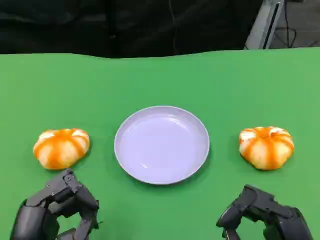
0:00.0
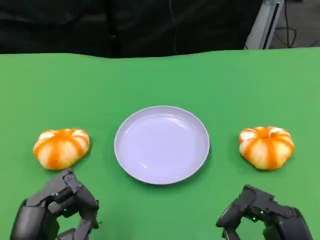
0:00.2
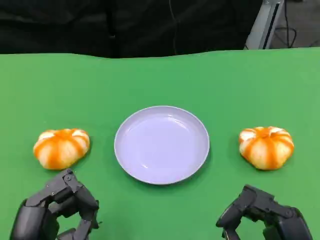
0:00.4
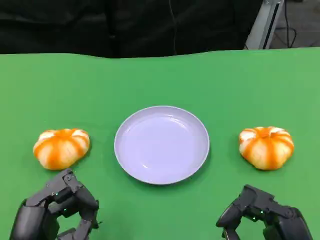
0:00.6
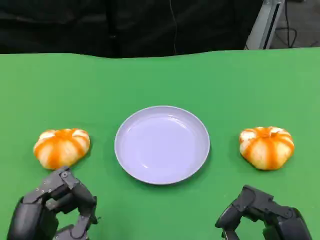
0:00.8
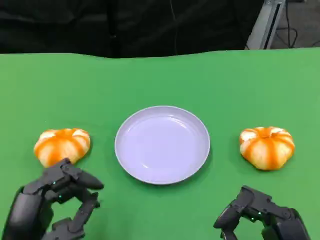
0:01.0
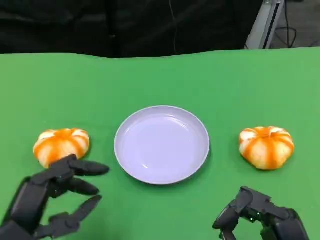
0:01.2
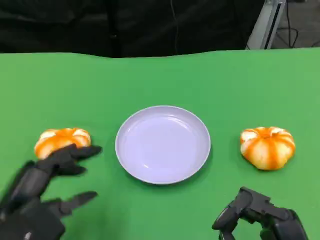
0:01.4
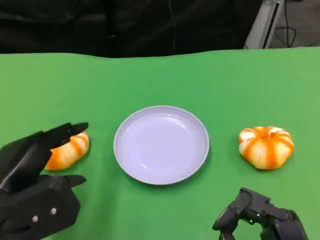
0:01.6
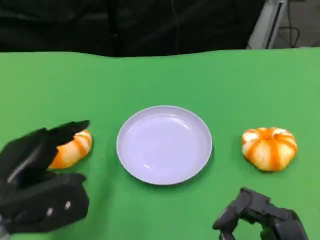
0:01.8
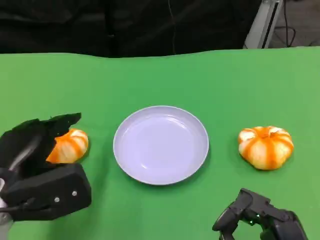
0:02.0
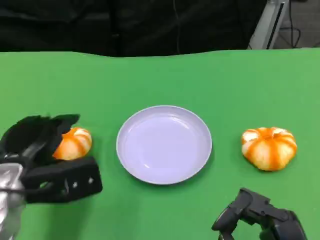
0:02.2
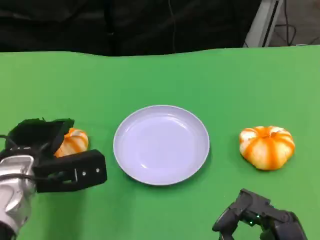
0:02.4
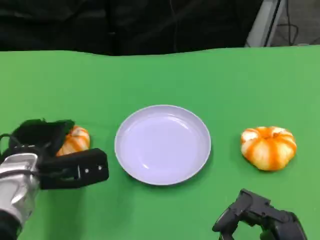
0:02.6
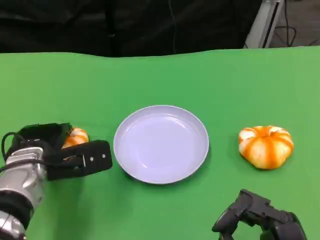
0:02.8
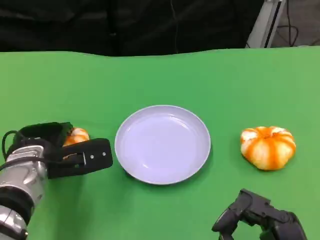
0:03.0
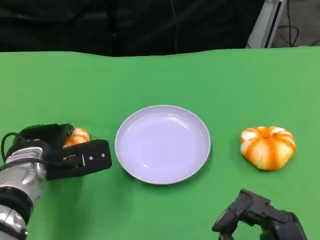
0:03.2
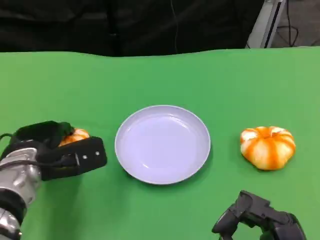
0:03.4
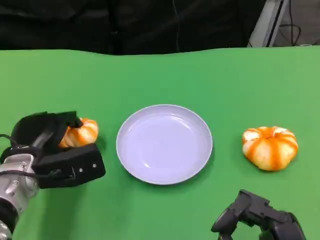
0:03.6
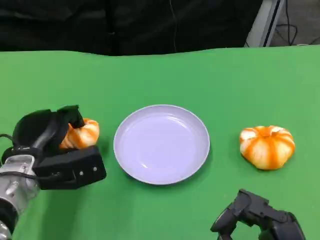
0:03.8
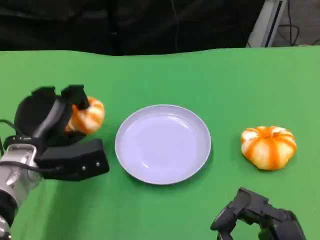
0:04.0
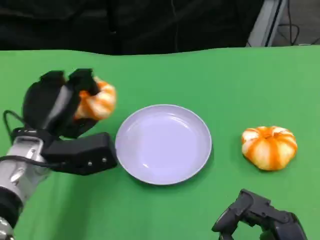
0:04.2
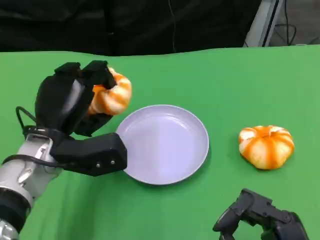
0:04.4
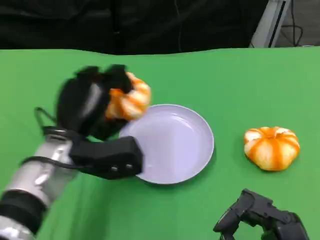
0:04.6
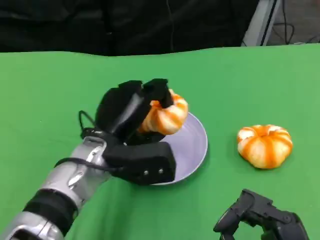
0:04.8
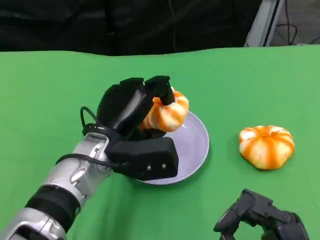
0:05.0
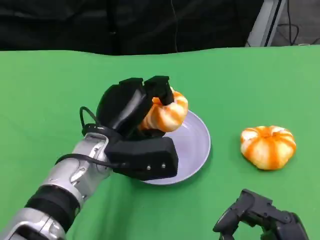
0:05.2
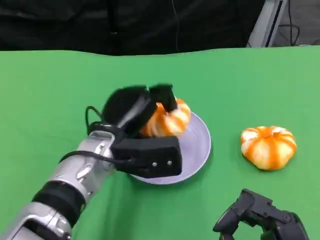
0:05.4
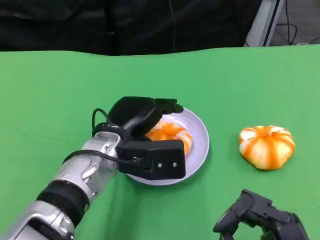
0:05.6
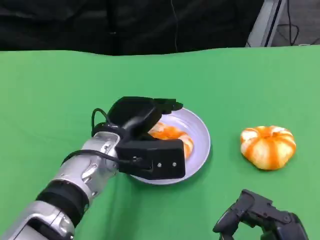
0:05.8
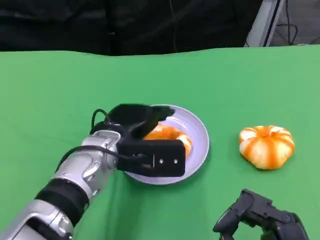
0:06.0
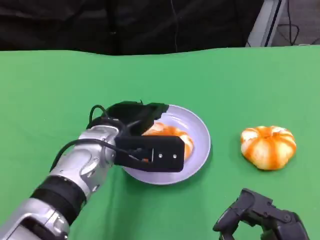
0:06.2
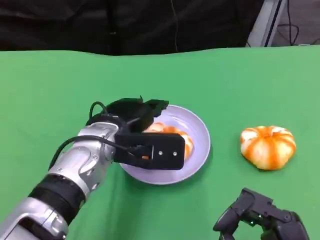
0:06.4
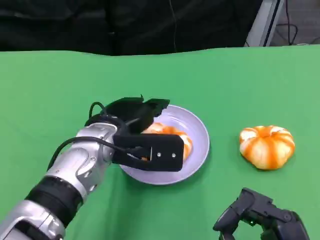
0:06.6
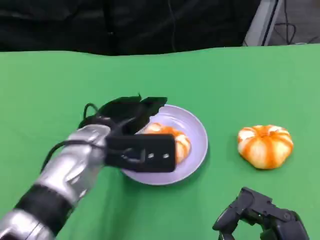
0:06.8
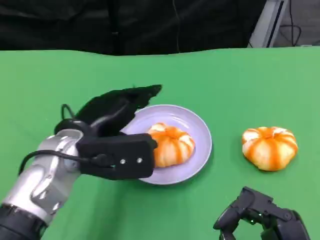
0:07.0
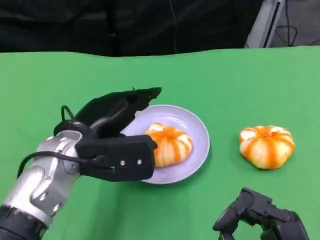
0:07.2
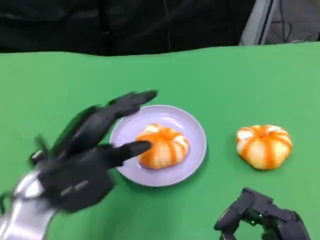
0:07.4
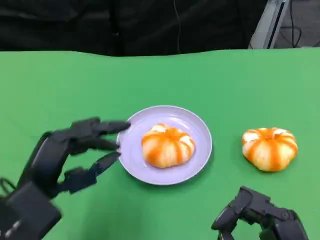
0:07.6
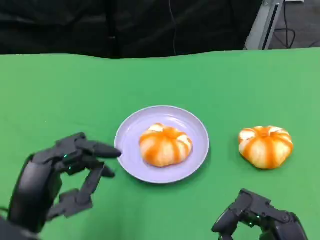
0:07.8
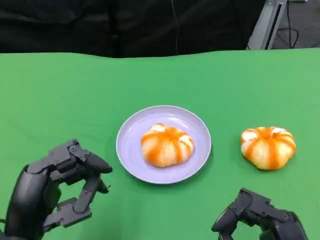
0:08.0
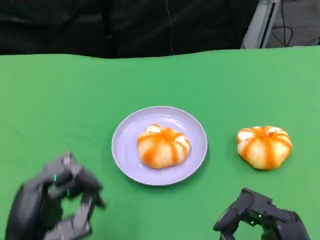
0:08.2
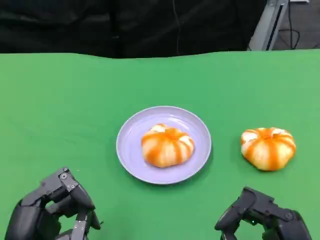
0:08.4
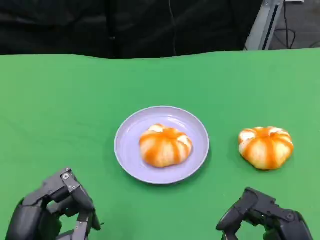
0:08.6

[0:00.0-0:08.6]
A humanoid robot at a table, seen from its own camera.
Task of the whole recording: Grasp the bread from the table and place it into the plate.
0:00.0 to 0:01.4: The left hand is displaced forward by roughly 5 cm.
0:01.4 to 0:02.8: The left hand is displaced forward by about 15 cm.
0:04.4 to 0:05.8: The left hand moves to the right, roughly 10 cm.
0:05.8 to 0:07.2: The left hand heads to the left, covering some 5 cm.
0:07.2 to 0:08.6: The left hand goes about 15 cm backward.

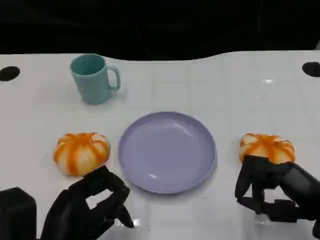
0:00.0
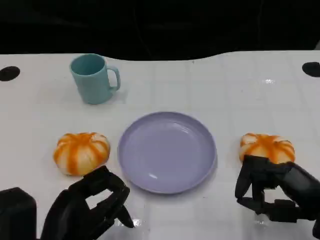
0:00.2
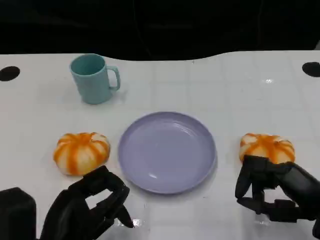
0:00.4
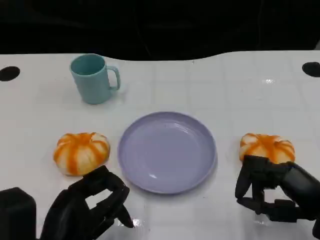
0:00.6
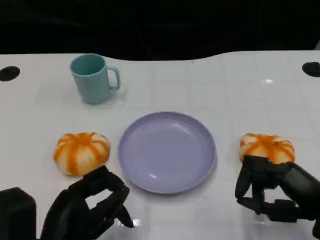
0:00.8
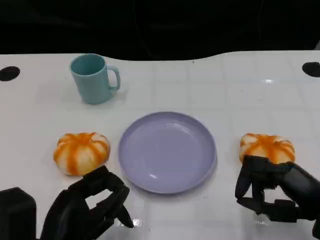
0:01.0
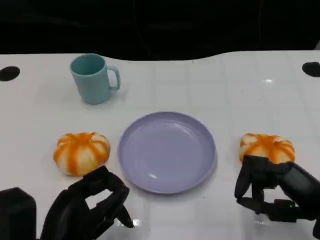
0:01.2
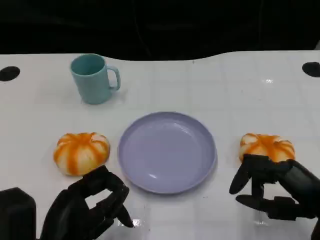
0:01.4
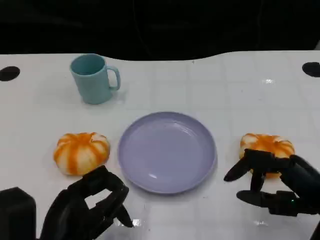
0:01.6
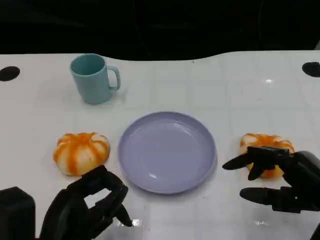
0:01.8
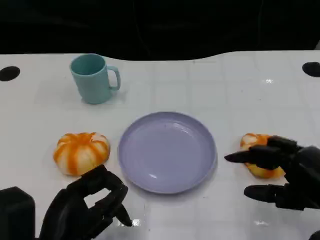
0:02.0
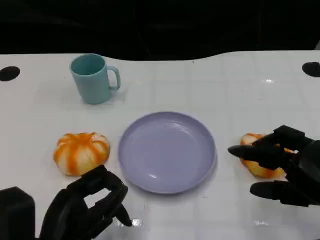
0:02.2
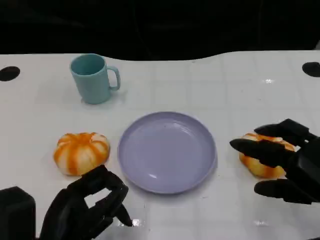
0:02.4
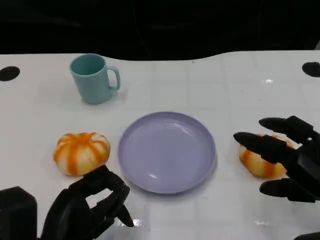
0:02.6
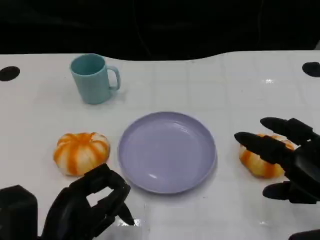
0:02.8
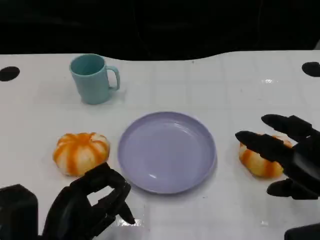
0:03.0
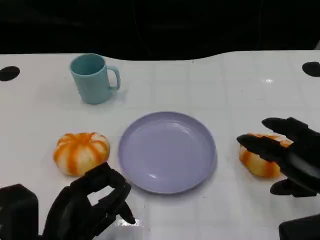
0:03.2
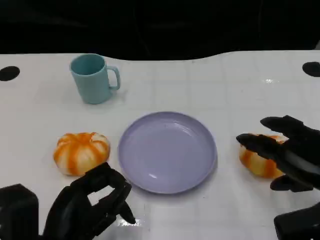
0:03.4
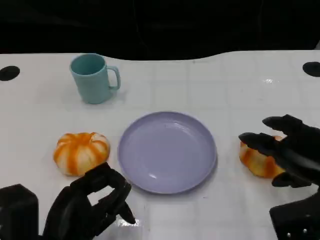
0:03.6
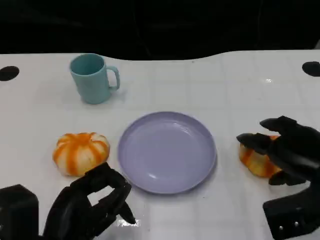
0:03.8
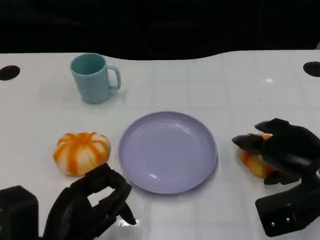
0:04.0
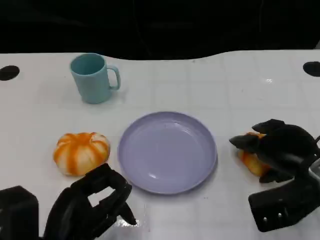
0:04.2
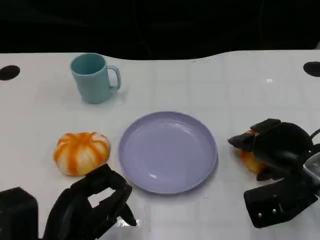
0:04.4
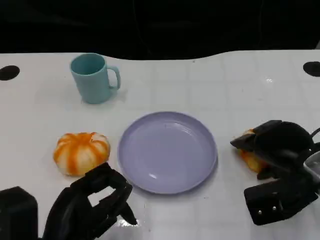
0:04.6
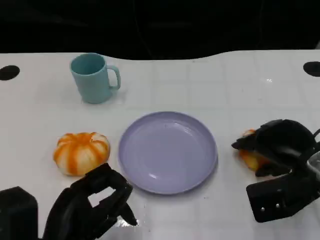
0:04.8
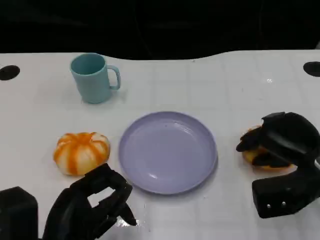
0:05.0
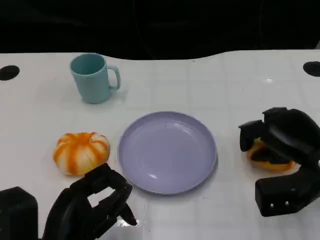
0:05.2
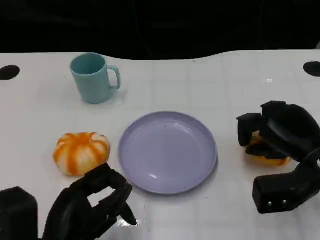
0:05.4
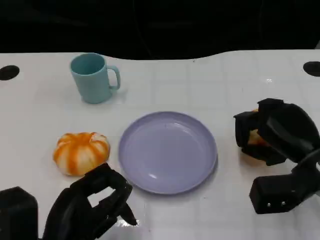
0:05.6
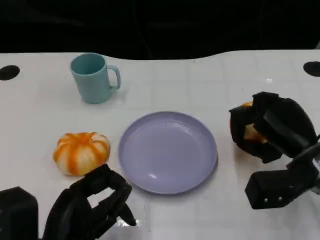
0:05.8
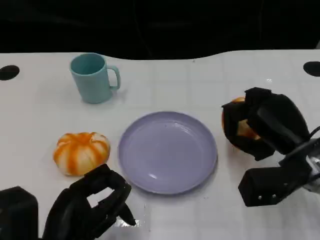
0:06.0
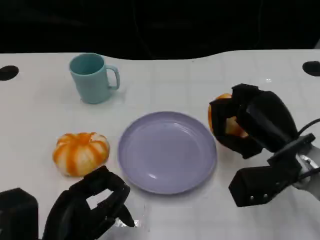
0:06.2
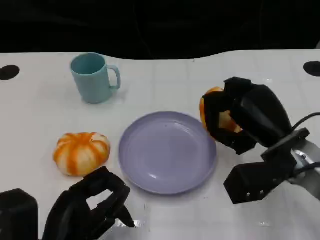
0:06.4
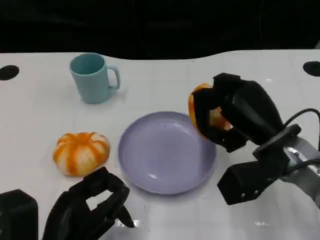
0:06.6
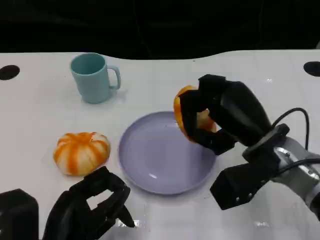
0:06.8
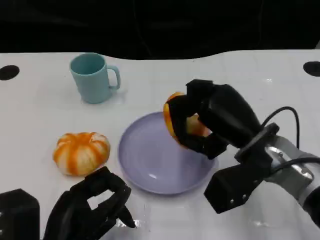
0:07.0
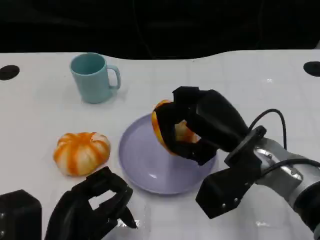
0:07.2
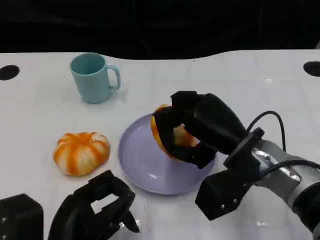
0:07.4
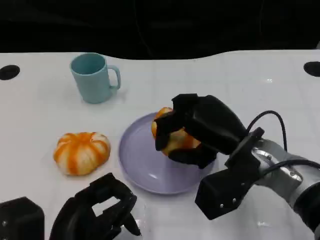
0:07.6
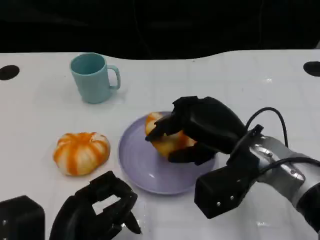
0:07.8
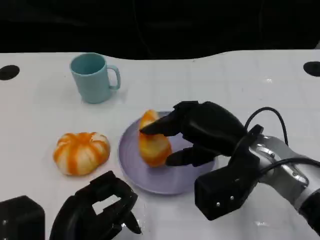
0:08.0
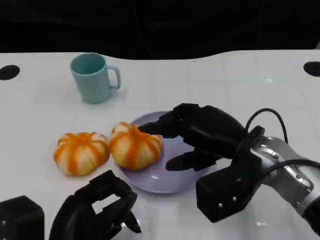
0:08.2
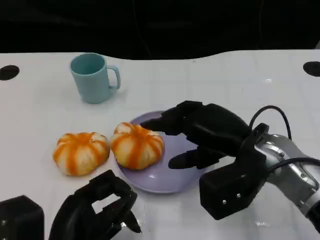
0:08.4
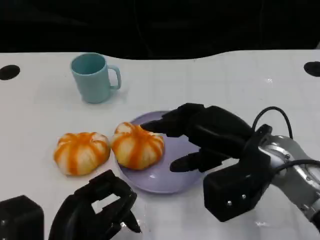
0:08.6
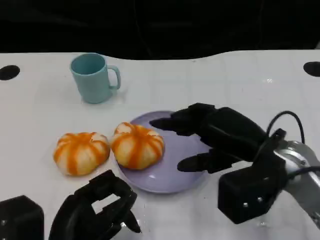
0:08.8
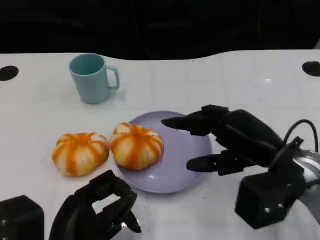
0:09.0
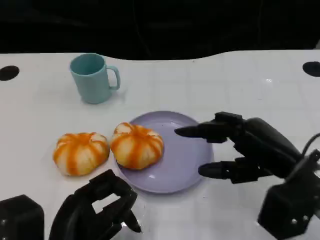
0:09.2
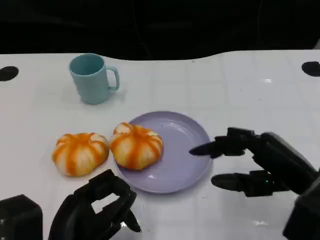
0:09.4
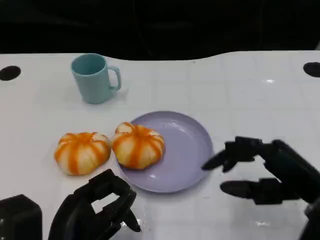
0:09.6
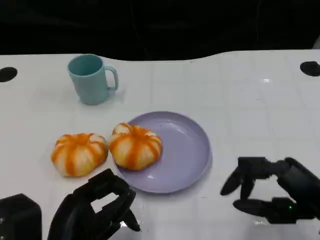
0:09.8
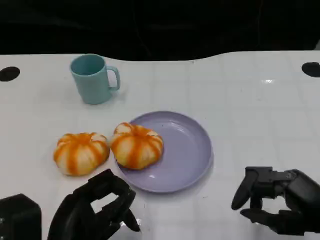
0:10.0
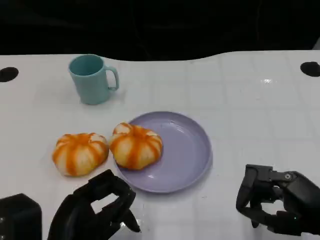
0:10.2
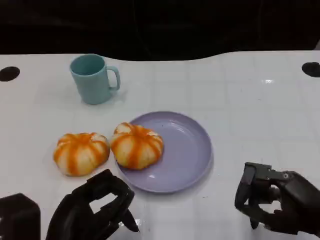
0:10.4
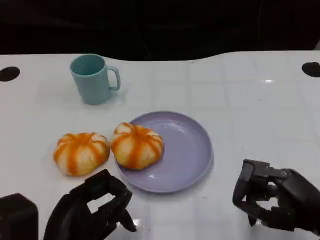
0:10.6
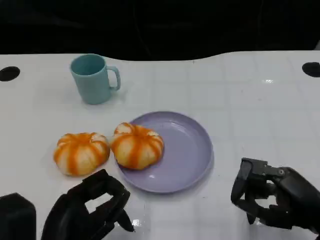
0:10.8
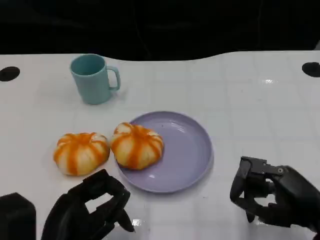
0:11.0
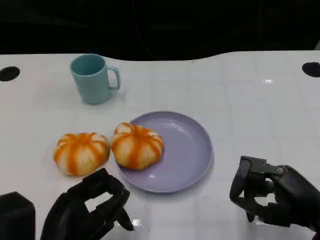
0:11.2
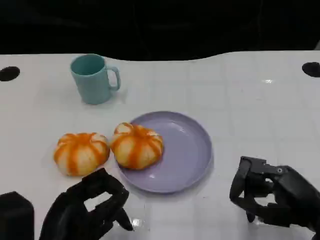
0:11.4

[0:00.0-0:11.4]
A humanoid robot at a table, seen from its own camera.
Task of the whole recording: Grasp the bread from the table and place it into the plate.
0:00.0 to 0:01.4: The hands make only small movements.
0:02.8 to 0:04.2: The right hand travels forward by roughly 10 cm.
0:05.6 to 0:07.2: The right hand heads to the left, covering roughly 10 cm.
0:08.6 to 0:10.0: The right hand goes roughly 15 cm to the right and backward.
0:10.0 to 0:11.4: There are only small adjustments of the hands.

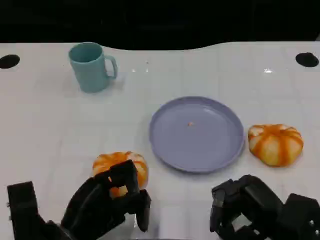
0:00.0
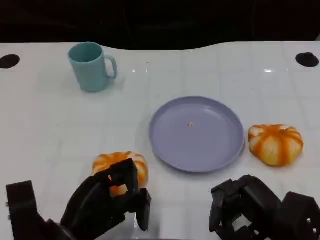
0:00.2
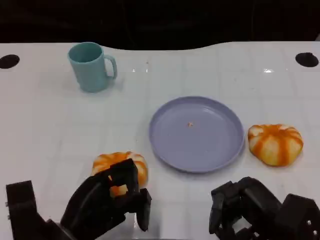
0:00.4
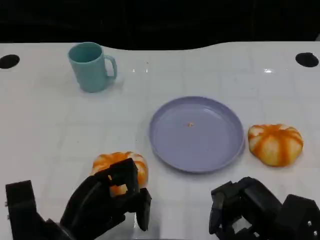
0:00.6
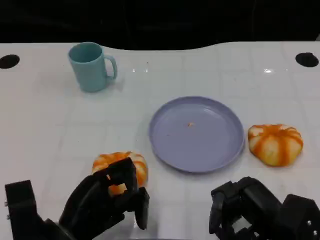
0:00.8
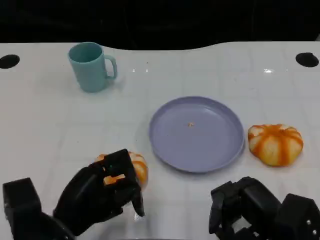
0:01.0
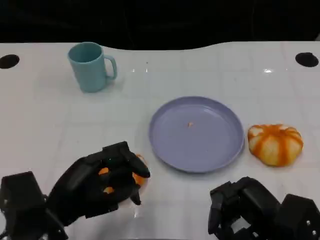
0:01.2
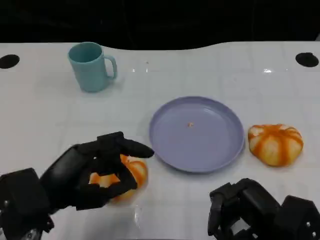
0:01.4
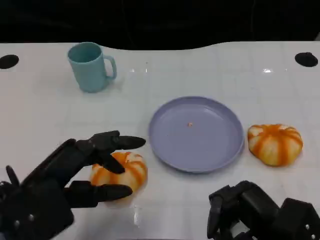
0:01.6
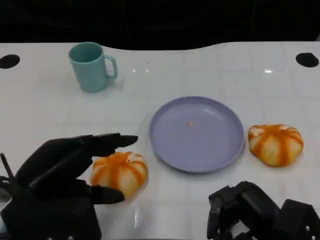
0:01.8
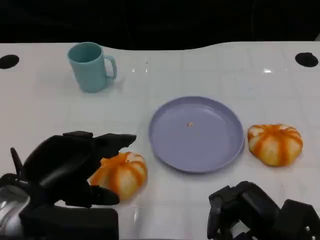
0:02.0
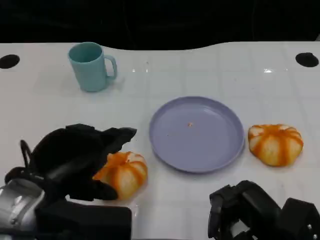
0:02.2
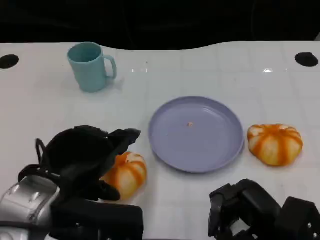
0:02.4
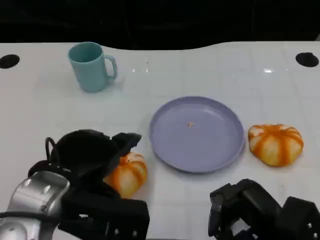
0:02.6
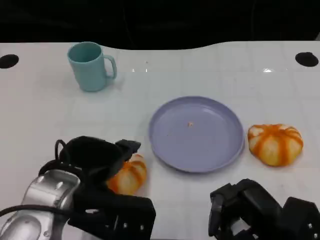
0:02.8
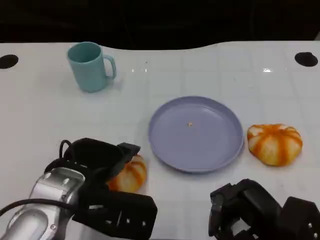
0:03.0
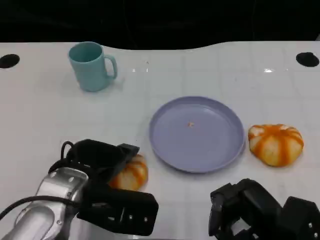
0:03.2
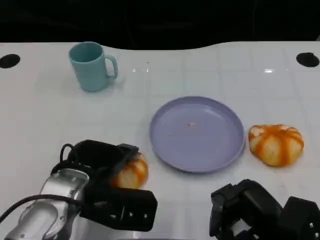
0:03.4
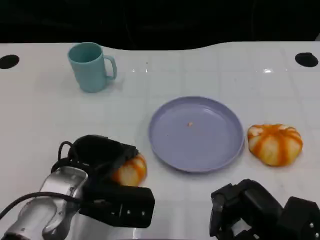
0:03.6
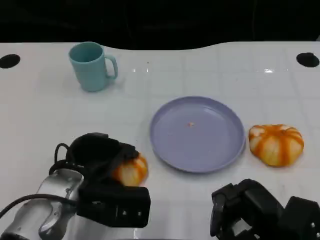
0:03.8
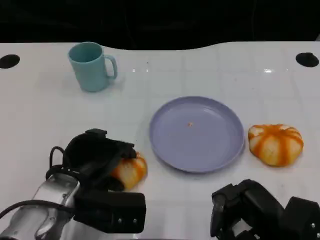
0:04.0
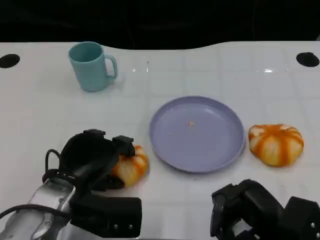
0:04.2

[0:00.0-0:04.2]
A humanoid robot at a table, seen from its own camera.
Task of the whole recording: Grasp the bread from the table and place it into the plate.
0:00.0 to 0:01.4: The left hand shifts some 10 cm upward.
0:01.4 to 0:02.8: The left hand goes about 5 cm to the right.
0:02.8 to 0:04.2: The left hand travels downward by some 5 cm.
